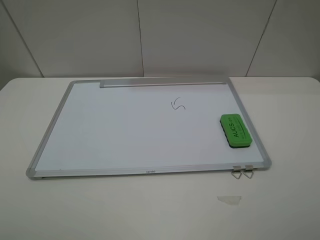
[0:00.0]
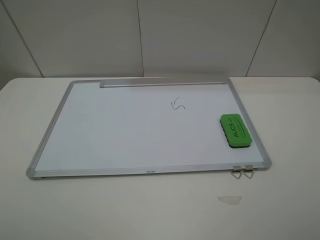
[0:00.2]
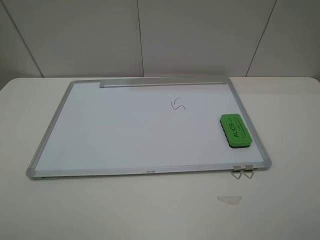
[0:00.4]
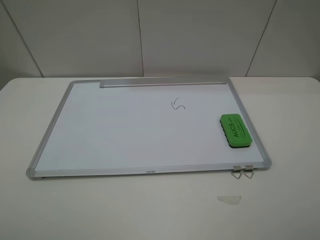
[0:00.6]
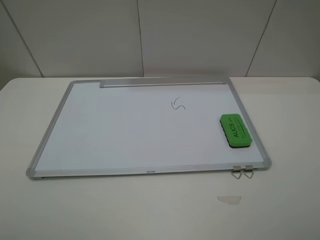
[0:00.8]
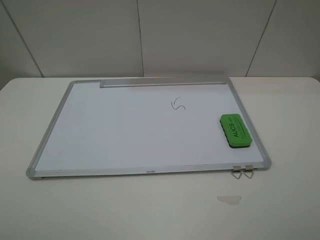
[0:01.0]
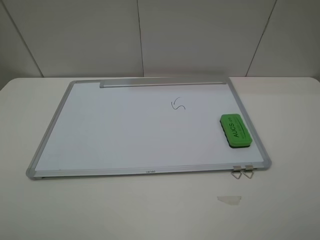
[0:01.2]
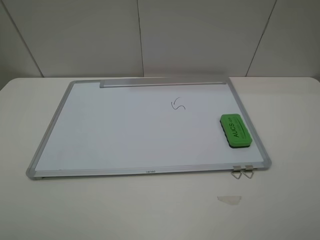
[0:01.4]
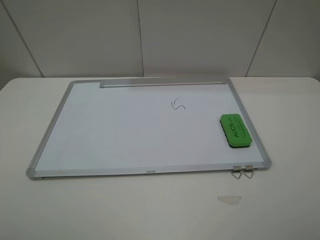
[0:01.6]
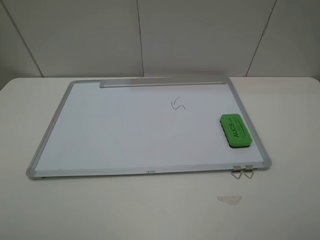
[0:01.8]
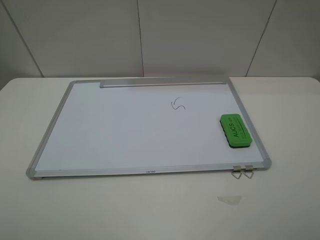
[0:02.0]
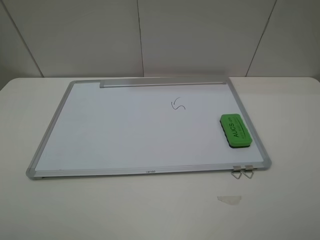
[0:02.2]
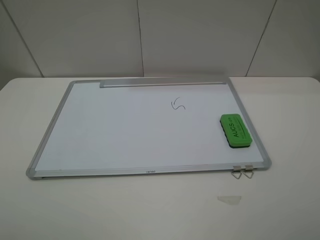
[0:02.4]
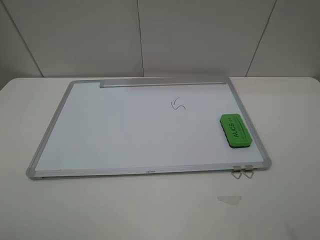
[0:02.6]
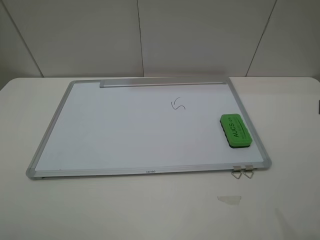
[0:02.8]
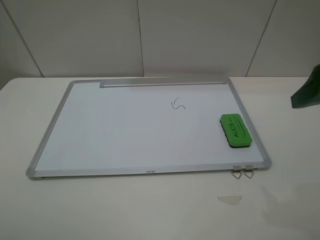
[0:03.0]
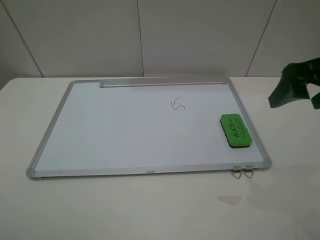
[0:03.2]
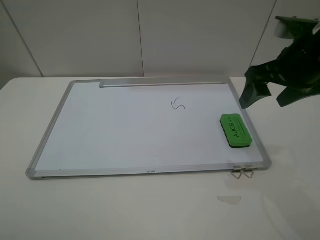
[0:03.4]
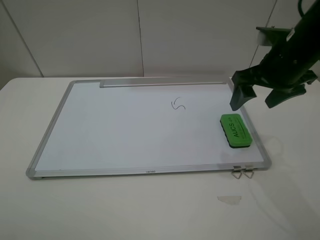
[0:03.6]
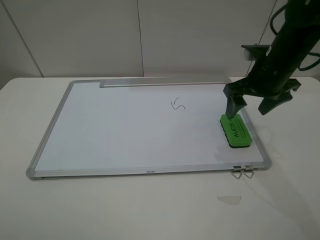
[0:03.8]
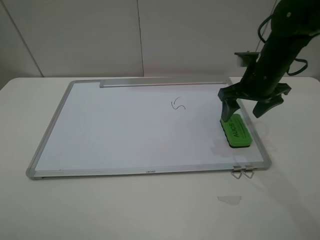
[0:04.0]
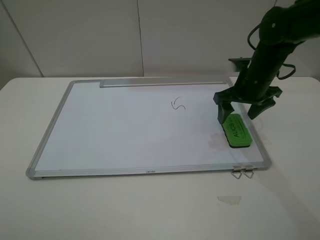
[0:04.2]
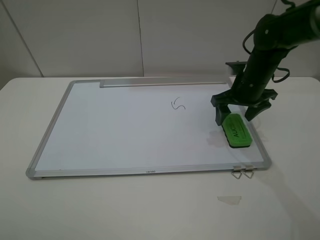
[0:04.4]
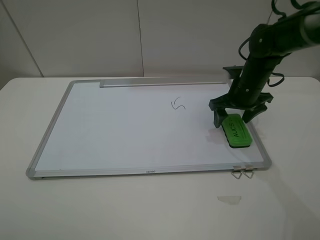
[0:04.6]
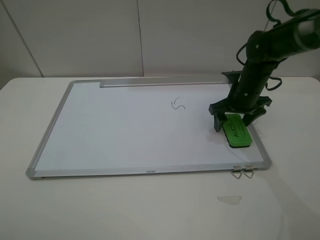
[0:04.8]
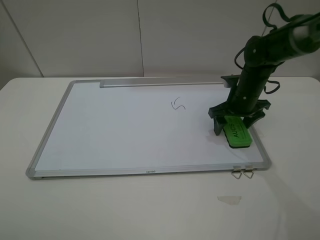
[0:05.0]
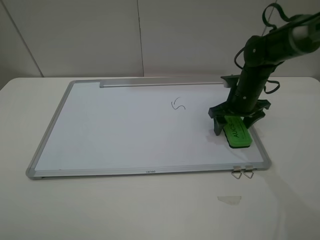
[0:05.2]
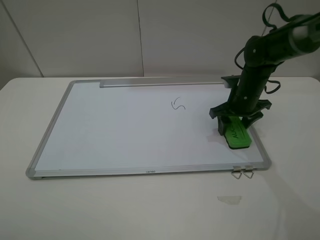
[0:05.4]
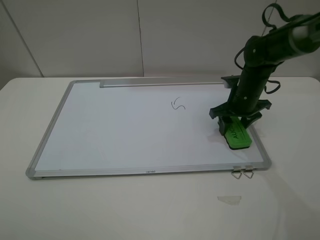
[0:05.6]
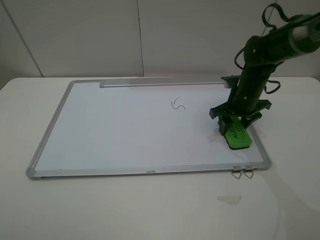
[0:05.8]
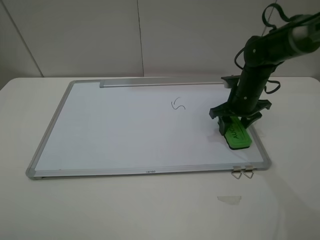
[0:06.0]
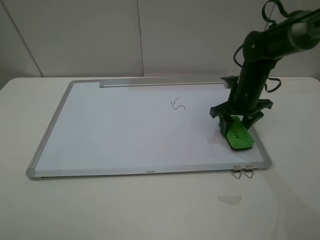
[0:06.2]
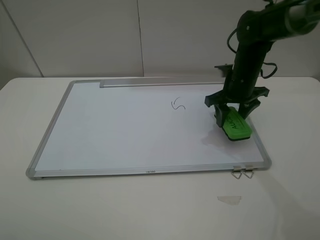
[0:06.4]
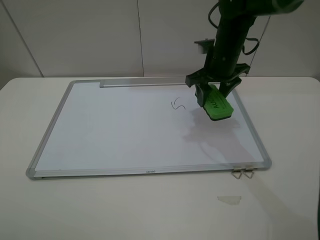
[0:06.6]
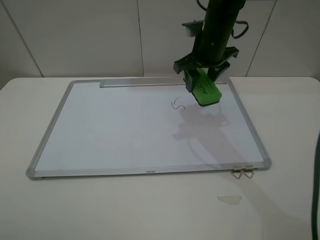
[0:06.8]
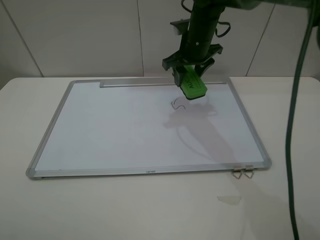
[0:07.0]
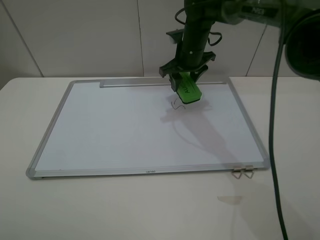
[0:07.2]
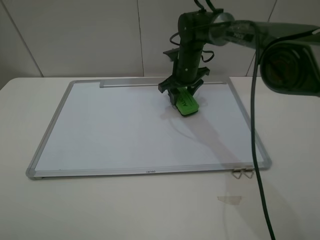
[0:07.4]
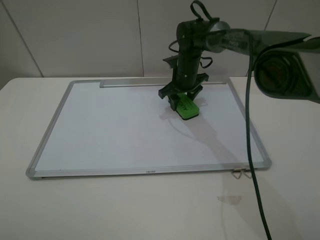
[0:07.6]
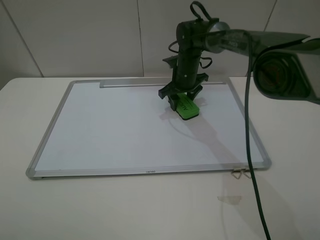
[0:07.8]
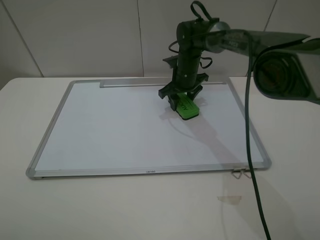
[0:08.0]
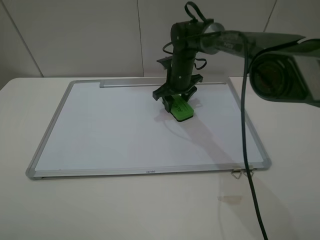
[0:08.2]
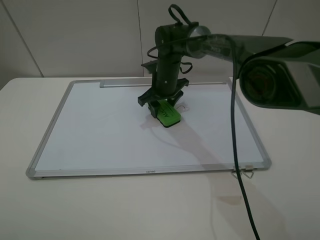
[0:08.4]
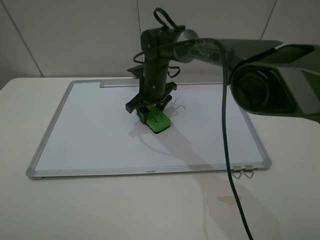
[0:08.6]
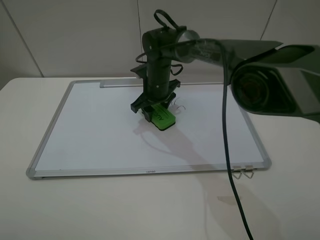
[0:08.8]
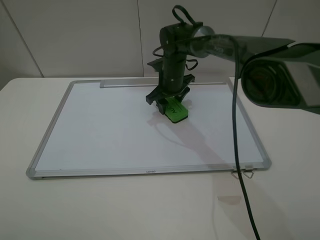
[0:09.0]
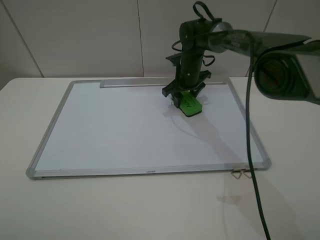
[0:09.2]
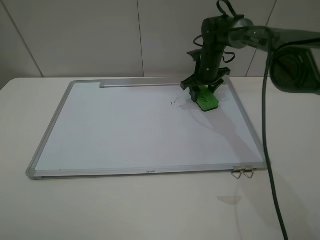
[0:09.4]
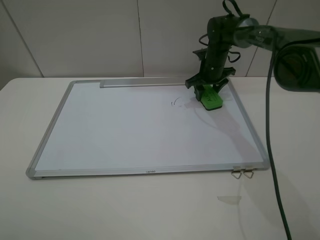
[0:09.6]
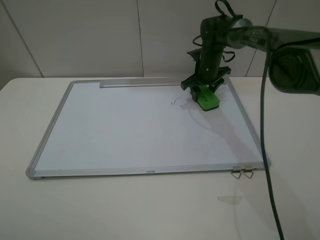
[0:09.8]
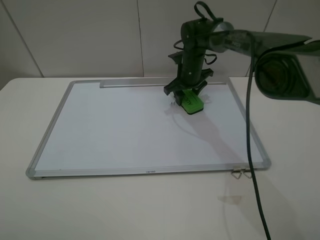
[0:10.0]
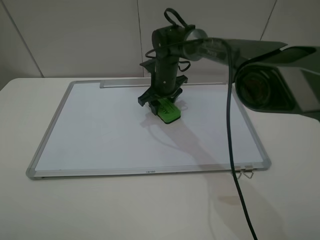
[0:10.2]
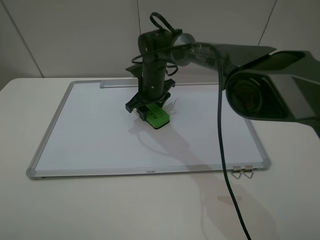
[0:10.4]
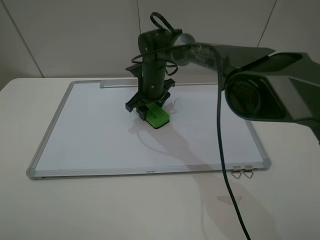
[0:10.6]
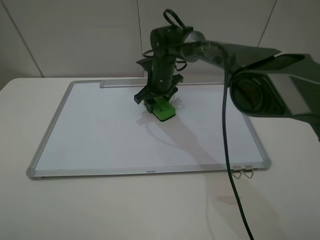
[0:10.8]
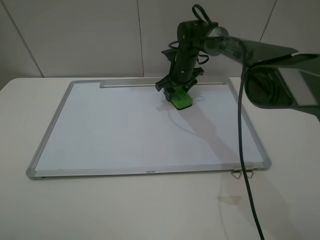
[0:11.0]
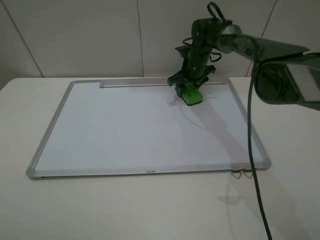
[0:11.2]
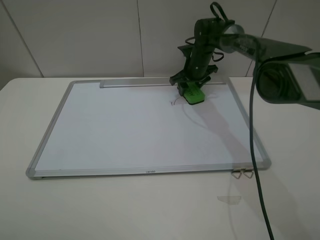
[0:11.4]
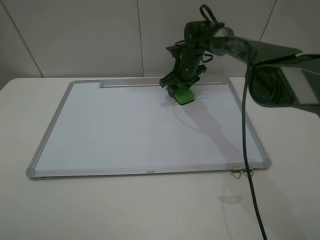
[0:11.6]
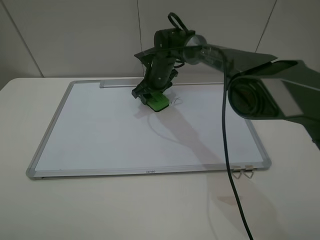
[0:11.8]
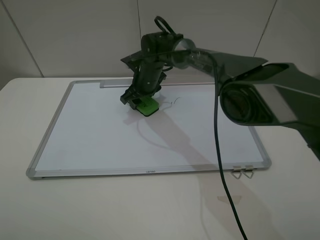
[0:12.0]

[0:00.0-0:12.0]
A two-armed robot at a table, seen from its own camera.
Step, 0:00.0 to 0:05.6: Grasp the eraser with the right gripper.
0:00.0 to 0:01.6: Both grippers stay put.
0:01.6 to 0:03.0: The right gripper moves forward, roughly 20 cm.
0:03.0 to 0:04.4: The right gripper moves forward and downward, roughly 25 cm.
0:04.4 to 0:06.0: The right gripper closes its fingers.
0:06.0 to 0:07.6: The right gripper is displaced to the left and forward by approximately 15 cm.
0:07.6 to 0:09.0: The right gripper goes to the left and returns, roughly 10 cm each way.
0:09.0 to 0:10.4: The right gripper heads to the left, covering about 5 cm.
0:10.4 to 0:12.0: The right gripper travels to the right and back again, about 15 cm each way.

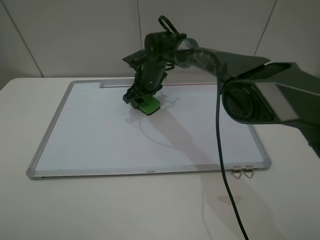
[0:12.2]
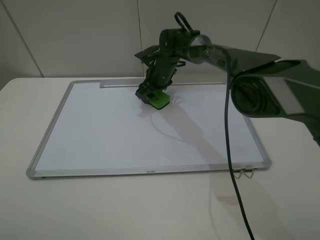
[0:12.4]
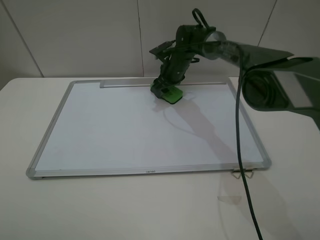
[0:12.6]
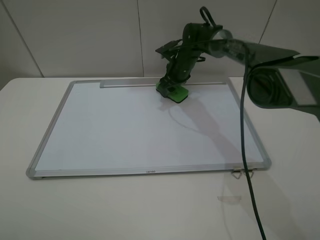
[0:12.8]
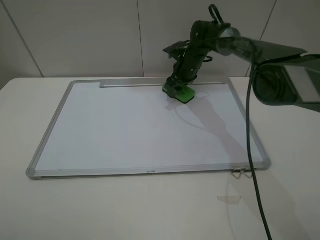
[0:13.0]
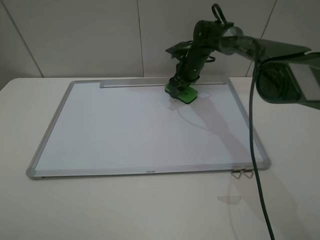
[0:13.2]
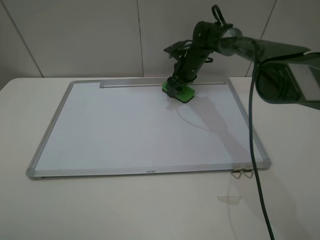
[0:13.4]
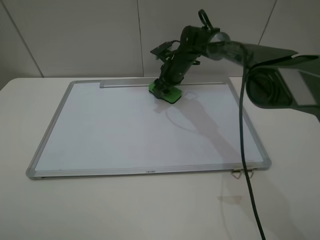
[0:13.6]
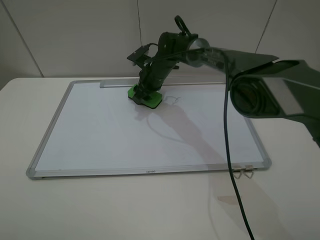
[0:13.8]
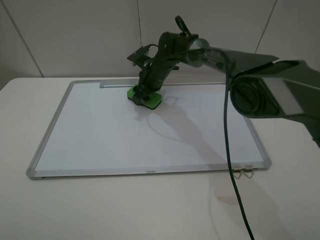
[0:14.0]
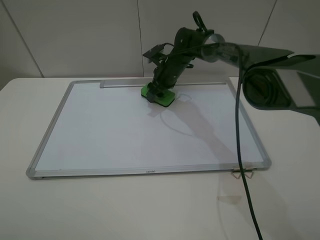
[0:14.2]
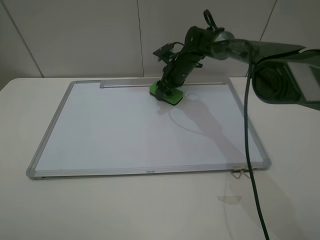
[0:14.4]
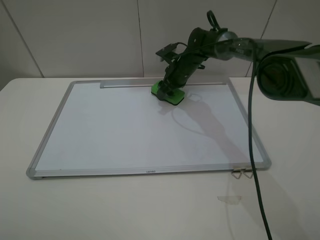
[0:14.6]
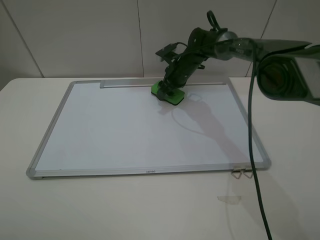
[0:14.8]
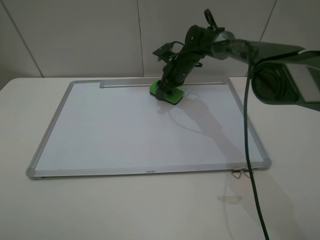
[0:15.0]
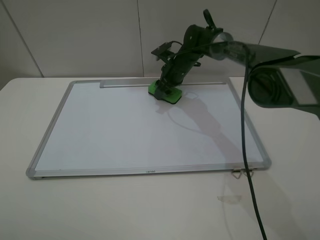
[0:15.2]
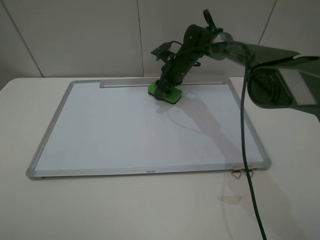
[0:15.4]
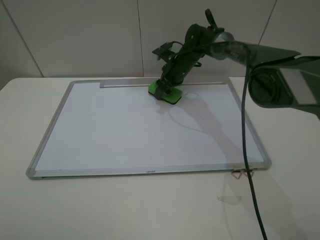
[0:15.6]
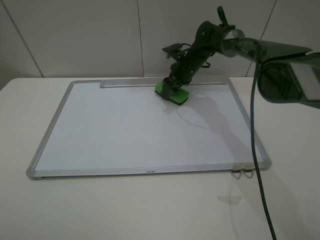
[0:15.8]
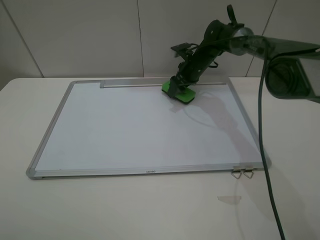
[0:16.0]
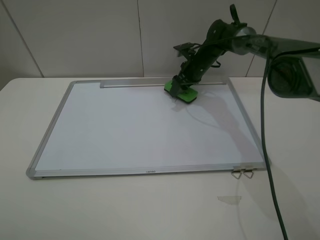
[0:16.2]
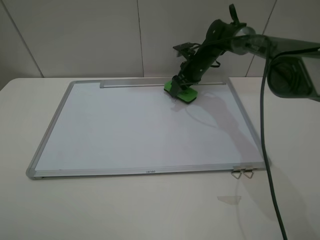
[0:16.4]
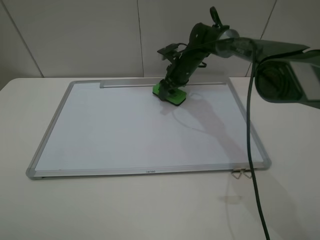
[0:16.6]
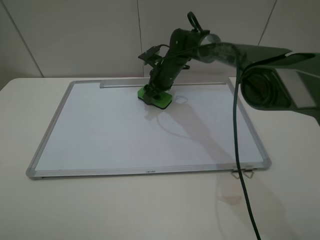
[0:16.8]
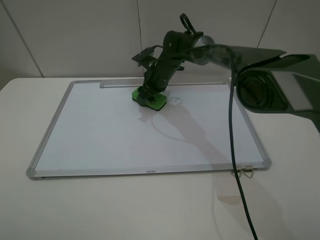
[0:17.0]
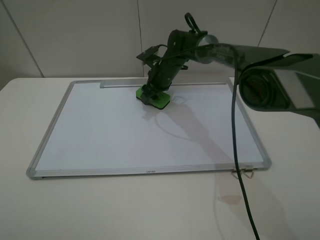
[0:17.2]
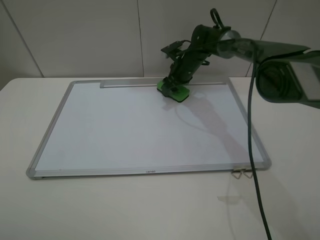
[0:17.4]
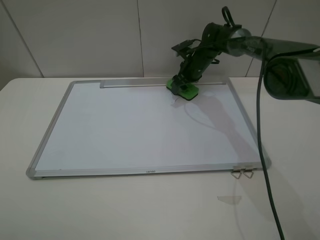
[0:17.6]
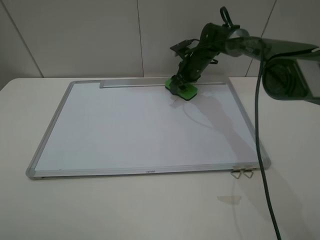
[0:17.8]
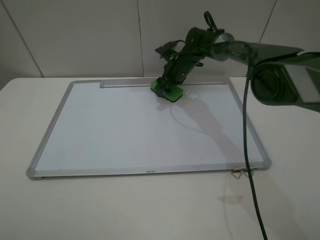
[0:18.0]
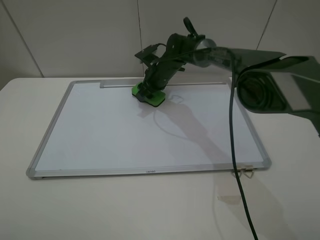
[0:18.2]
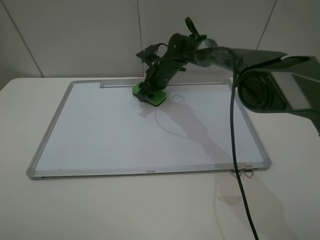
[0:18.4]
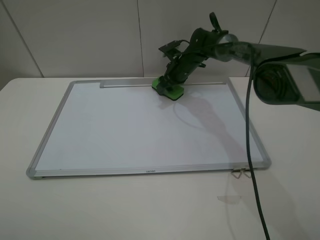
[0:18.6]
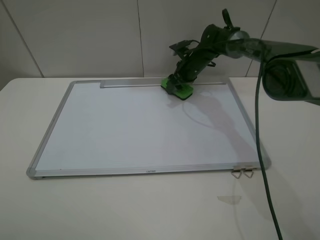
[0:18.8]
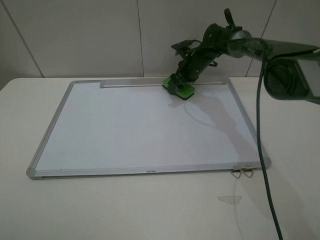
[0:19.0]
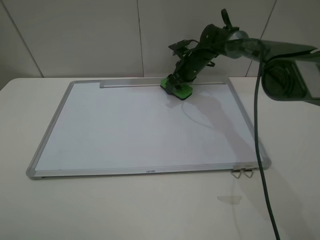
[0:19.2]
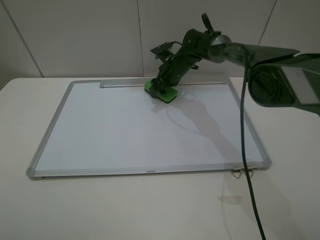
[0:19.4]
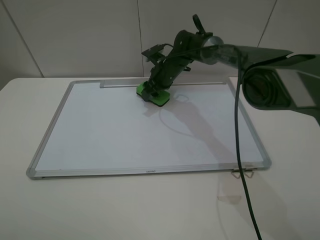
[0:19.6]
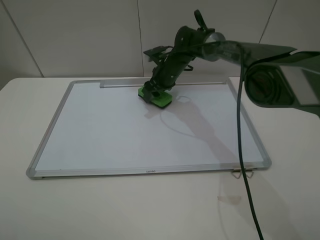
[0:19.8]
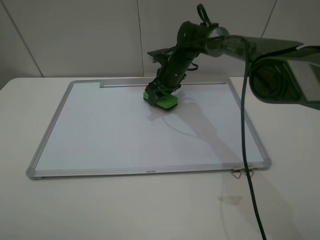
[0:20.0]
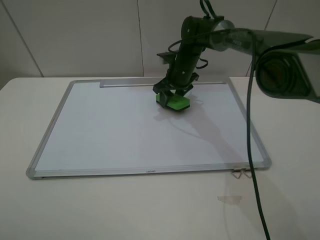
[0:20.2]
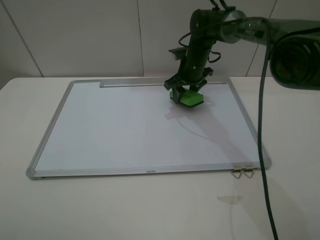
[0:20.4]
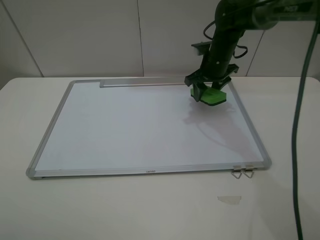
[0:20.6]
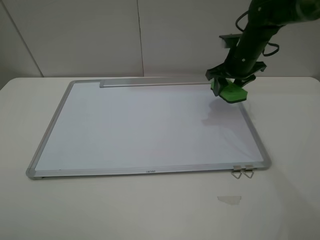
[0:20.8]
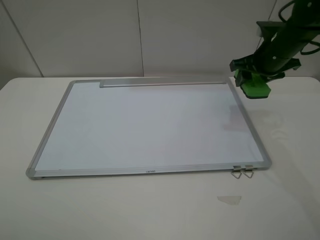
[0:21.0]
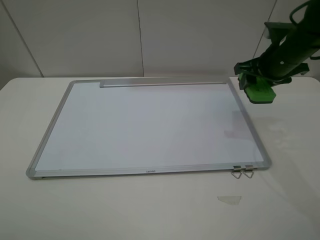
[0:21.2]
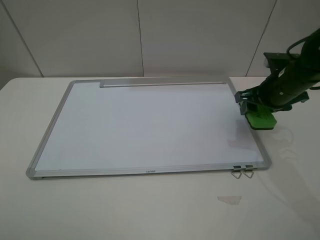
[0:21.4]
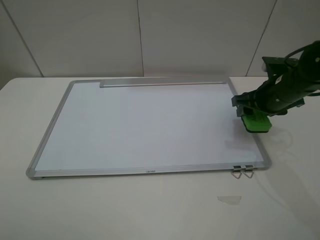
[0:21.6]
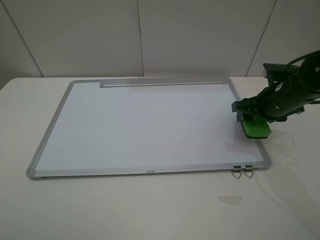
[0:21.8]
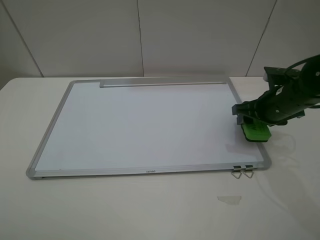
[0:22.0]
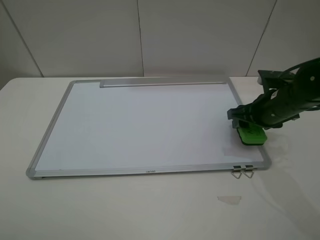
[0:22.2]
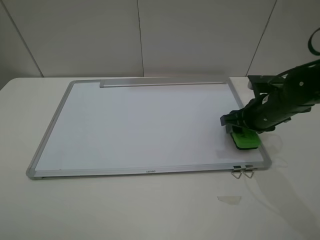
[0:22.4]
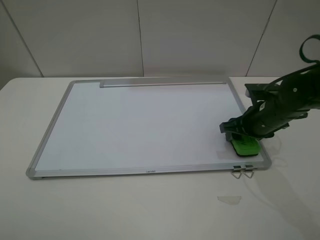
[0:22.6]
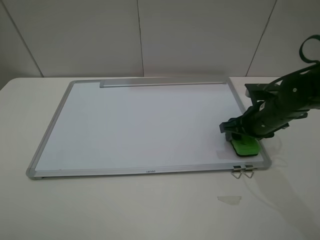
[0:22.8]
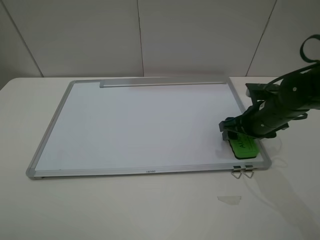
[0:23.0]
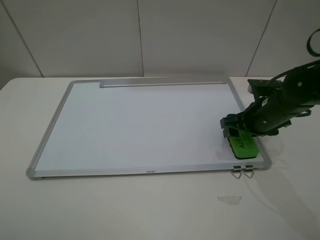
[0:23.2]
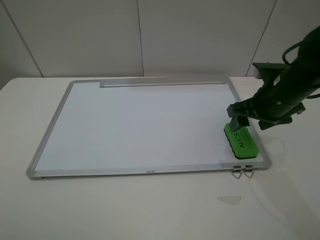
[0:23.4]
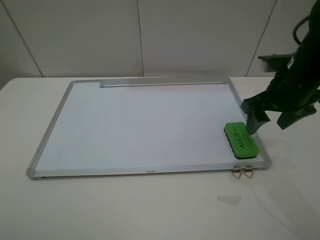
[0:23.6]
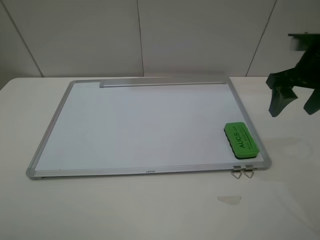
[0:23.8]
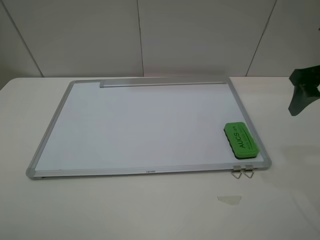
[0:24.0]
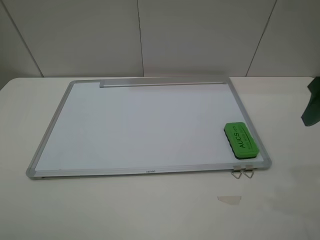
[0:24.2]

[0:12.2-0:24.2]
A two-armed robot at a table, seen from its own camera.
Step, 0:12.2 to 0:19.6: Grasp the eraser and wipe the blackboard with the right gripper.
Step, 0:19.8 to 0:23.4: Place the eraser with the right gripper.
0:12.2 to 0:13.8: The right gripper travels to the right and back again, roughly 10 cm each way.
0:13.8 to 0:15.2: The right gripper shifts roughly 5 cm to the right.
0:15.2 to 0:16.6: The grippers move only a little.
0:16.6 to 0:18.2: The right gripper swings left and right, approximately 10 cm each way, with 2 reversals.
0:18.2 to 0:19.8: The right gripper goes to the right and returns, roughly 10 cm each way.
0:19.8 to 0:21.2: The right gripper is displaced to the right, backward and upward by about 30 cm.
0:21.2 to 0:22.6: The right gripper shifts some 10 cm downward and backward.
0:22.6 to 0:24.2: The right gripper travels upward and backward by about 20 cm, and opens up.
